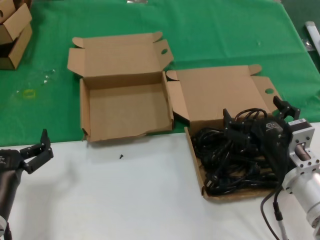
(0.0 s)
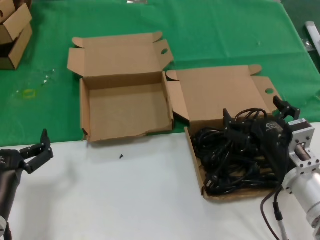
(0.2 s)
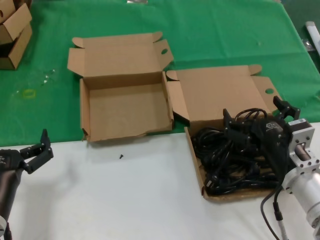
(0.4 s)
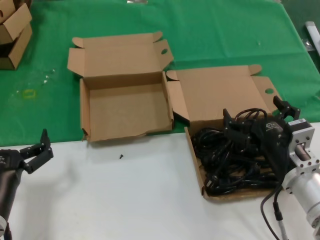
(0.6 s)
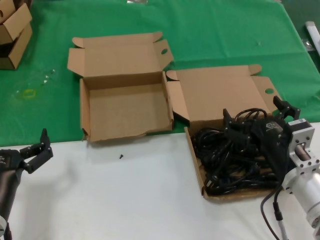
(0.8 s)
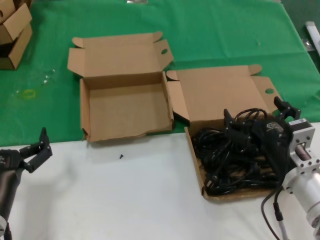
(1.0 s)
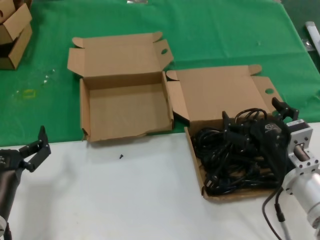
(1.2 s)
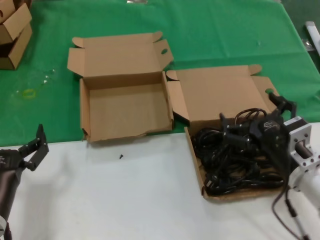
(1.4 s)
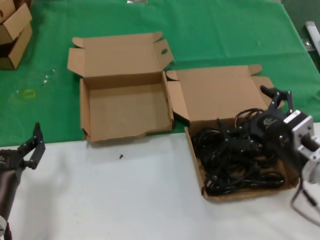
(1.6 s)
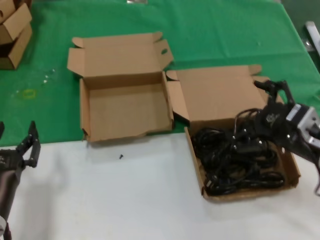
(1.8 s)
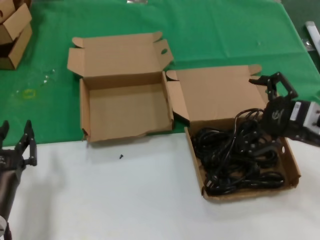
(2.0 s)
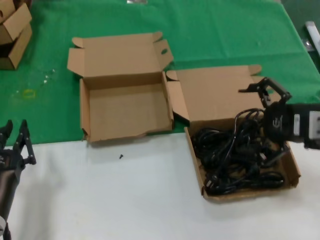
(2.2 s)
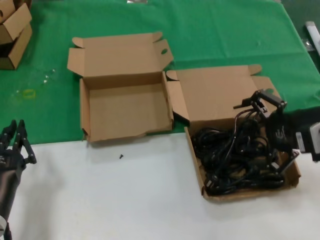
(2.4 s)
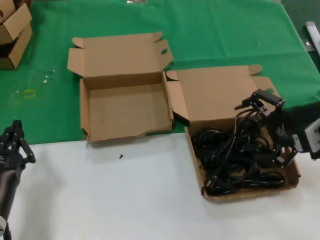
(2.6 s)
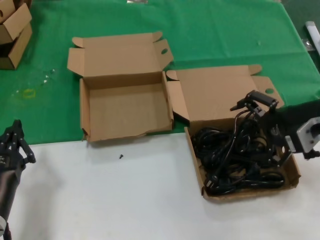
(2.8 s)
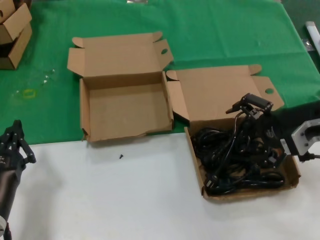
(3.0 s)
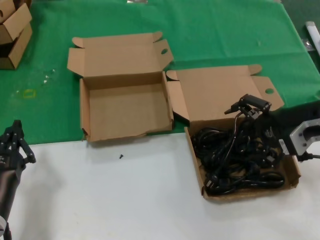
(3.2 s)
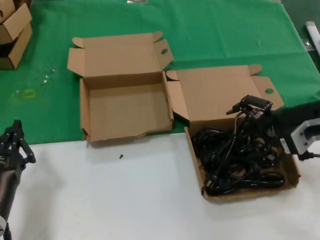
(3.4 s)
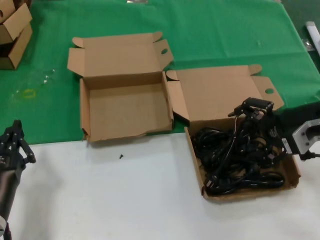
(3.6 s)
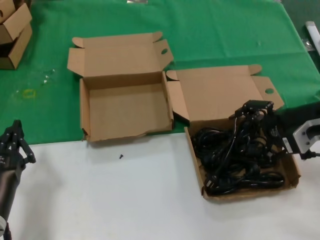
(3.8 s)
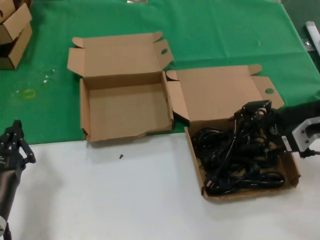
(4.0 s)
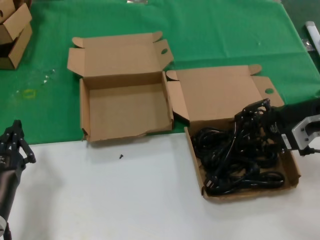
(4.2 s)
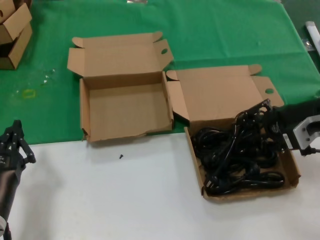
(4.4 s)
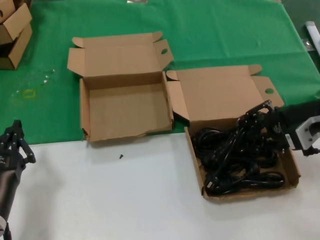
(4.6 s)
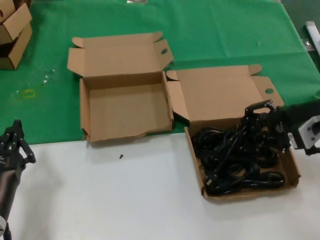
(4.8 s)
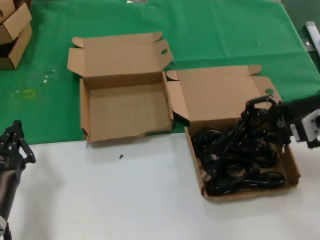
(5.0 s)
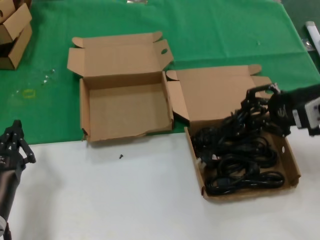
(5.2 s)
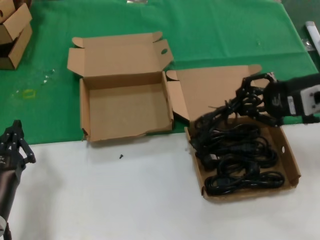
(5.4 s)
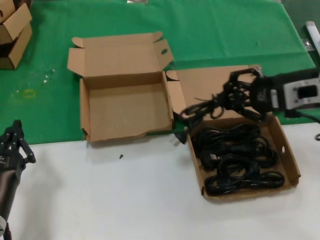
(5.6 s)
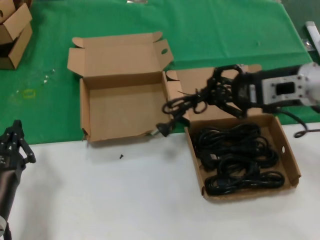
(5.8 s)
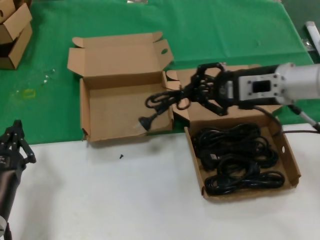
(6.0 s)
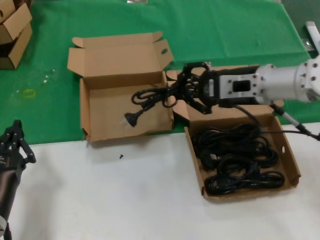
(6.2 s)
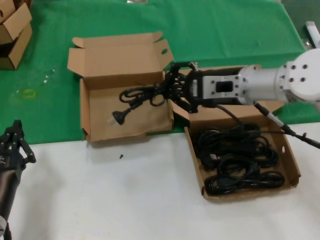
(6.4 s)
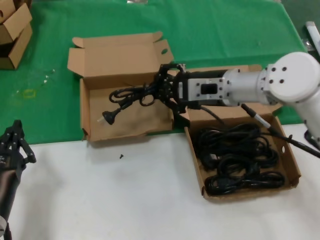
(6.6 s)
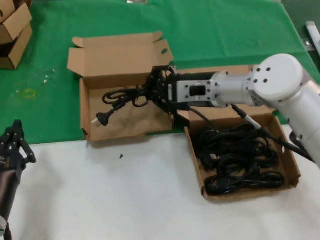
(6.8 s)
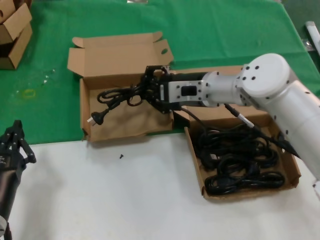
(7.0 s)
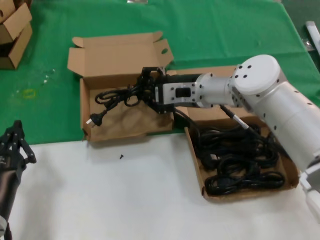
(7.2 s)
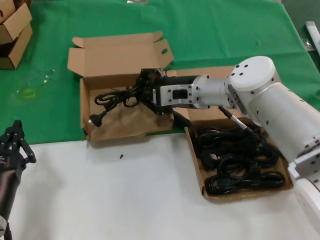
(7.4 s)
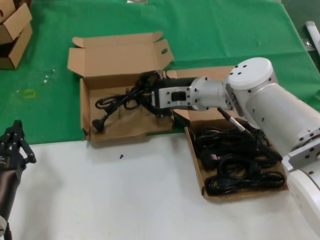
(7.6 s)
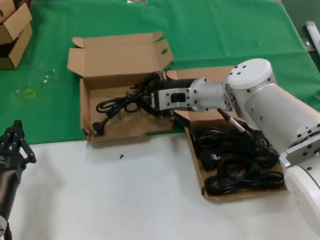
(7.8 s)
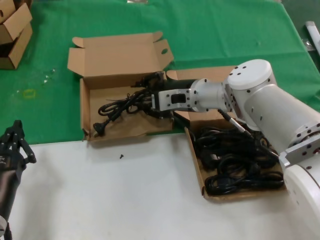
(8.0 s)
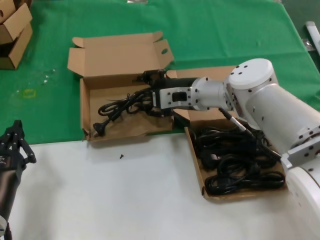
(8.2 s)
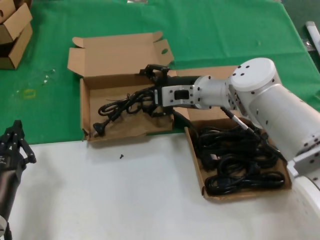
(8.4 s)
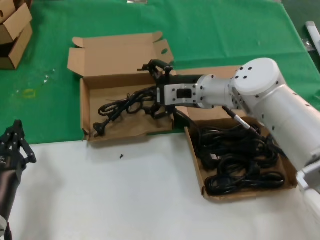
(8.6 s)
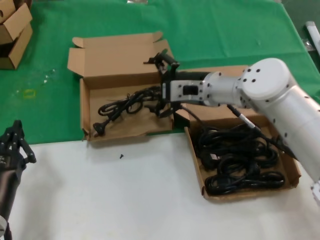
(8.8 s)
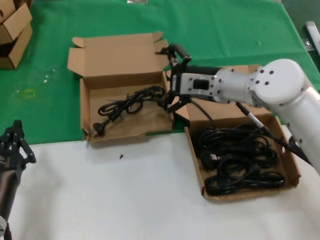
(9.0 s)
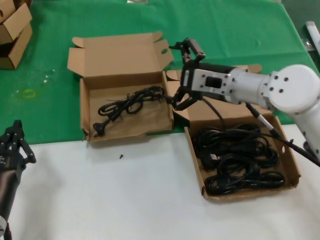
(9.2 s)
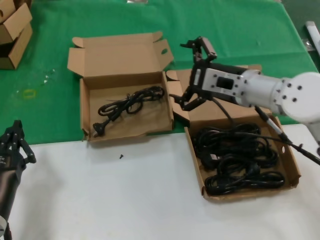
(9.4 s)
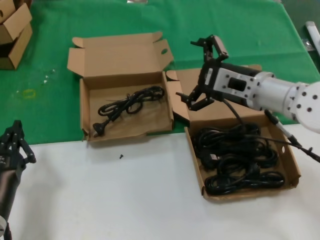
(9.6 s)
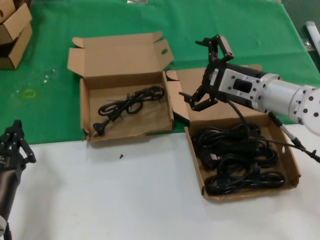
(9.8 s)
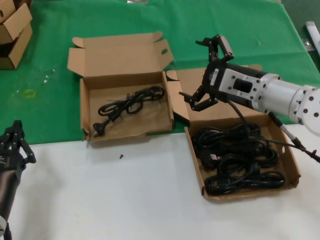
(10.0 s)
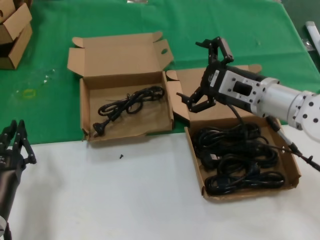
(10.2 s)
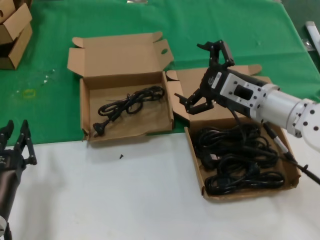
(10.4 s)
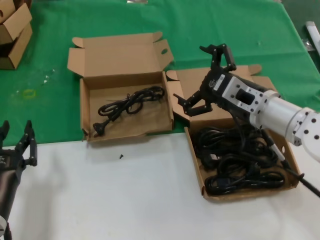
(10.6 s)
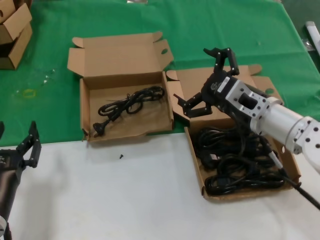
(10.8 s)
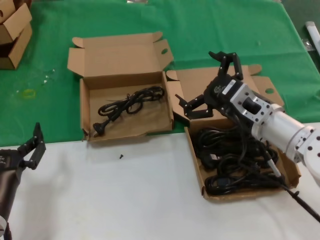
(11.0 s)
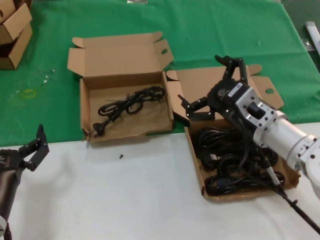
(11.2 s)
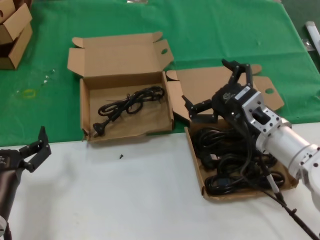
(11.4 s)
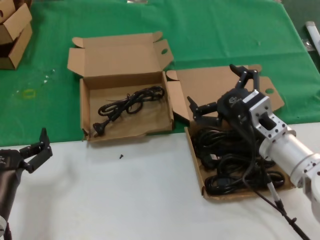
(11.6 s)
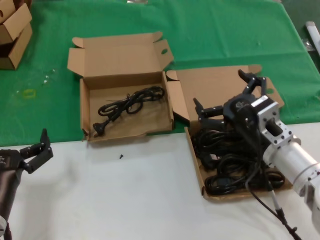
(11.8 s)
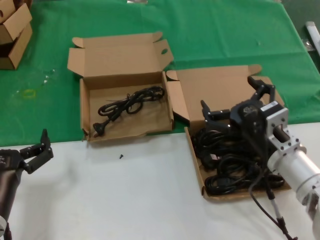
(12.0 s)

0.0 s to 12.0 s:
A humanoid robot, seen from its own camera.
Task of the whole recording: take the parts from the box containing them and put them into an empty box.
Step, 0.0 to 4.6 s: Grasp the data cable.
Step, 4.8 to 7.8 s: Place the data cable in the another box.
0.0 to 1.6 s: The right hand shifts by approximately 5 cm.
1.6 to 3.0 s: The right hand shifts about 15 cm upward, forward and to the right.
3.0 to 4.4 s: The hands stay close to where they were, moving slightly.
4.4 to 6.0 s: The right hand goes about 10 cm to the left.
6.0 to 7.6 s: The right hand shifts about 20 cm to the left, forward and downward.
7.6 to 9.0 s: The right hand changes place by some 5 cm.
9.0 to 10.4 s: The right hand travels backward and to the right by approximately 10 cm.
10.4 to 12.0 s: The right hand moves downward and backward, roughly 10 cm.

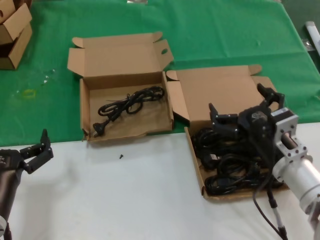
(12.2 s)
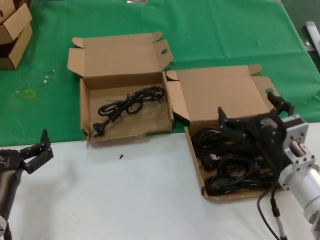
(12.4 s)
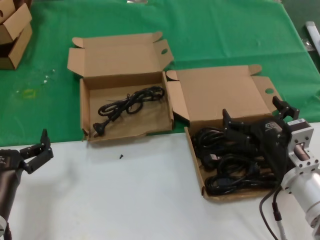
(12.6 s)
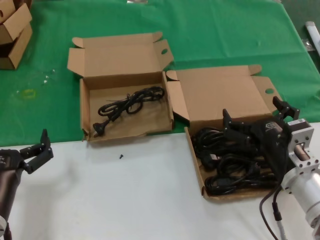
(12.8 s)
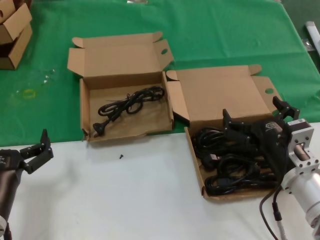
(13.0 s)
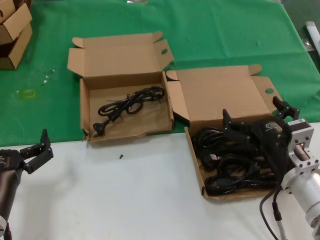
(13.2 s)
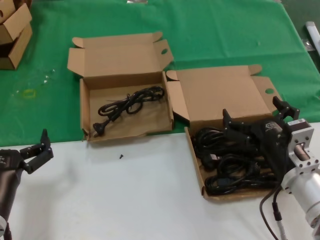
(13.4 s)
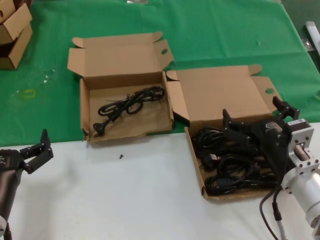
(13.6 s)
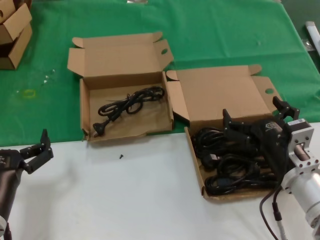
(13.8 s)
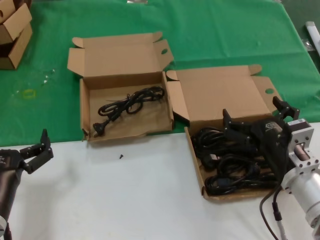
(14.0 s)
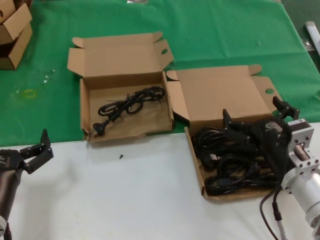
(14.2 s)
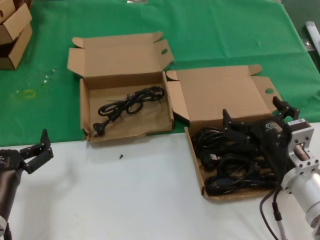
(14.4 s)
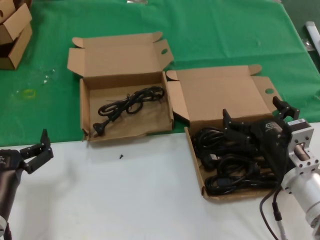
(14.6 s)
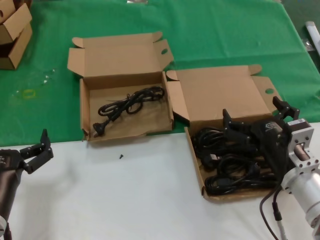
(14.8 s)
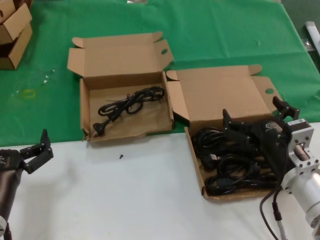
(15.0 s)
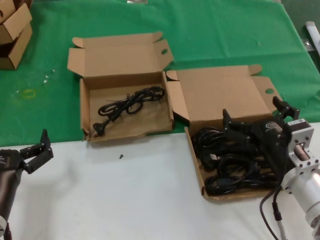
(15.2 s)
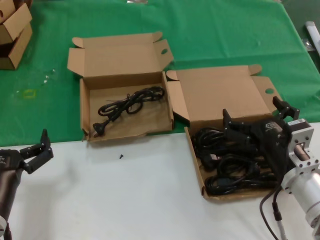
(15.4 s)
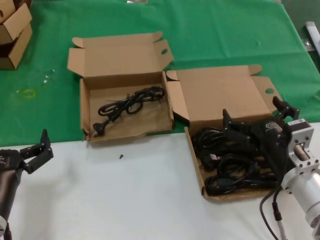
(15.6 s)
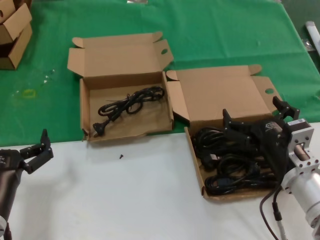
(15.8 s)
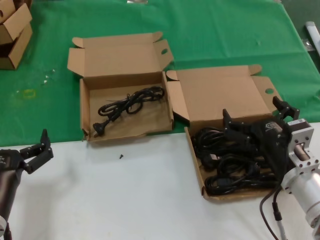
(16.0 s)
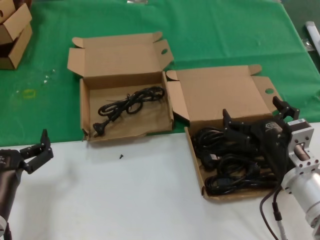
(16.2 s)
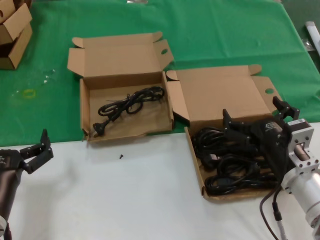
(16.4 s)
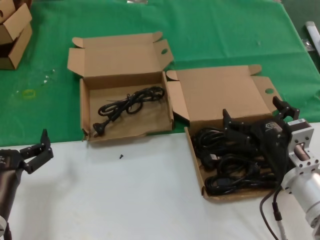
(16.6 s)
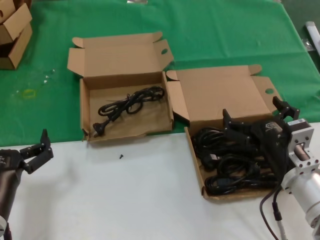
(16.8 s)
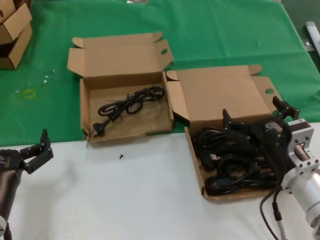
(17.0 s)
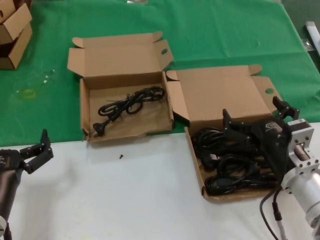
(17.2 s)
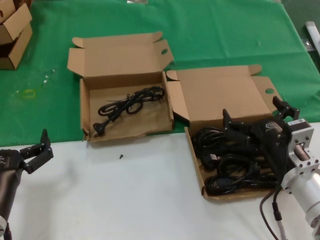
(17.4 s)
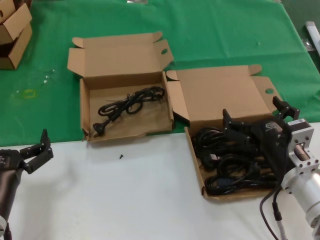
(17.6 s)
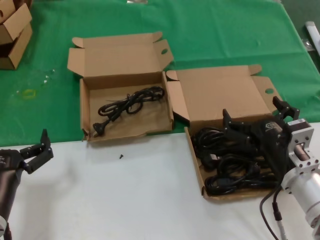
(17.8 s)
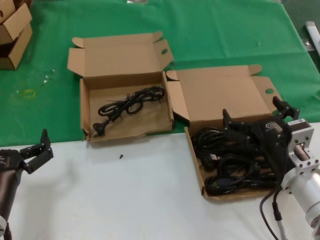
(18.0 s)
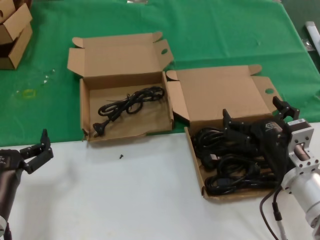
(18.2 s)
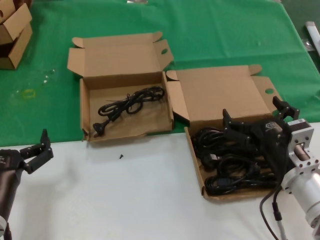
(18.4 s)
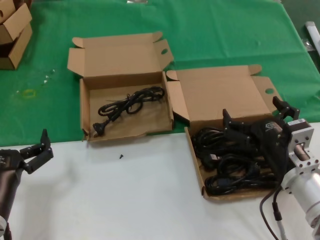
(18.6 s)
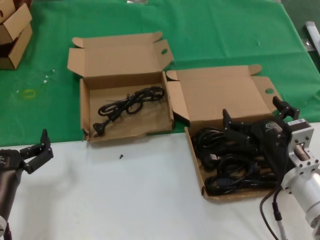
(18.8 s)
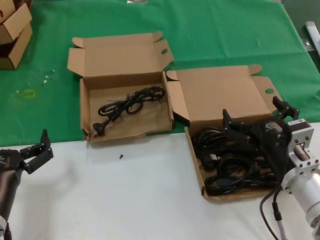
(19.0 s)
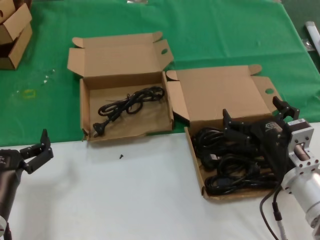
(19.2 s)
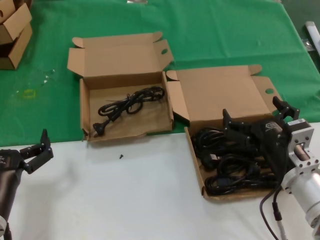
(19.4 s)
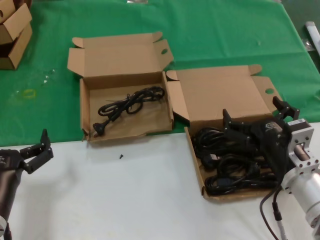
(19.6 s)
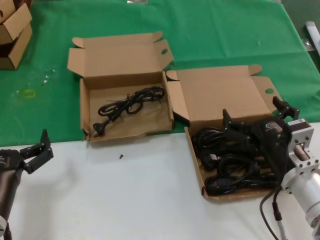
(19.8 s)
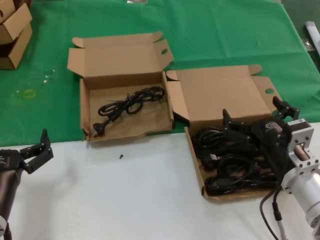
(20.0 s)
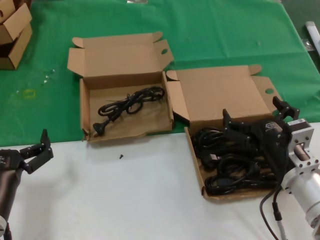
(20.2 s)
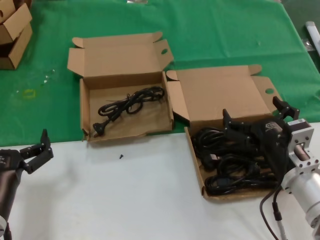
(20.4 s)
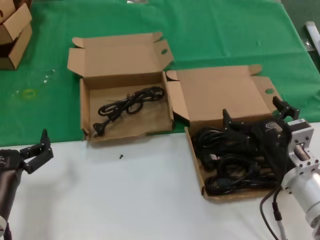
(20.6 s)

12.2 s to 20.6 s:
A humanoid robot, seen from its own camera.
Task of the whole recording: take the parts from the box containing them and put them into an empty box.
12.2 to 13.6 s: The hands move only a little.
13.6 to 20.6 s: Neither hand changes place.

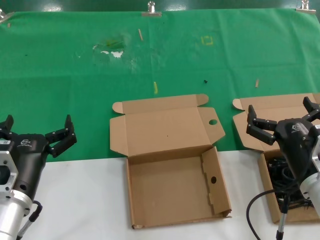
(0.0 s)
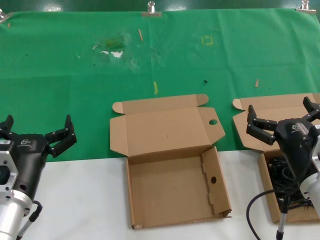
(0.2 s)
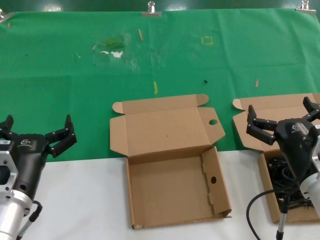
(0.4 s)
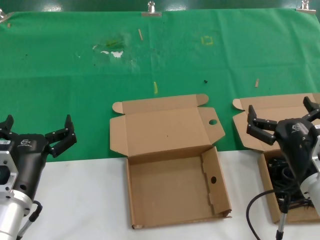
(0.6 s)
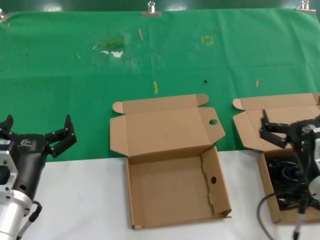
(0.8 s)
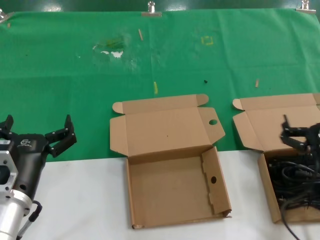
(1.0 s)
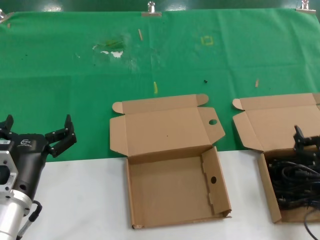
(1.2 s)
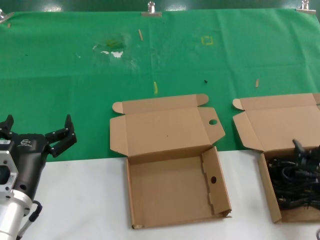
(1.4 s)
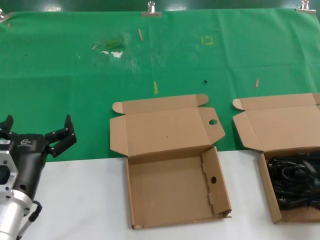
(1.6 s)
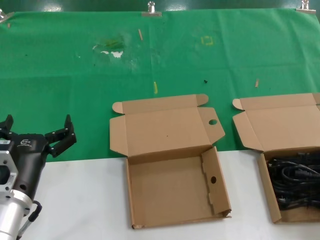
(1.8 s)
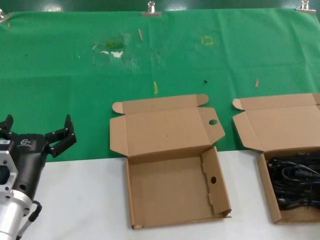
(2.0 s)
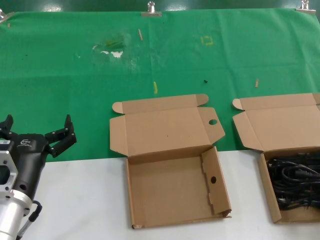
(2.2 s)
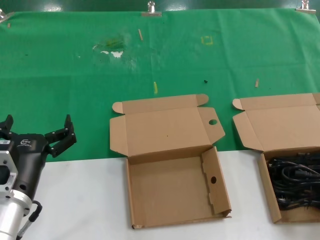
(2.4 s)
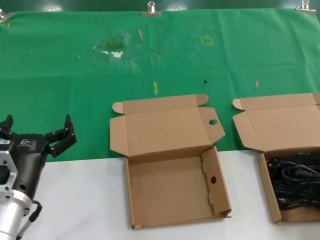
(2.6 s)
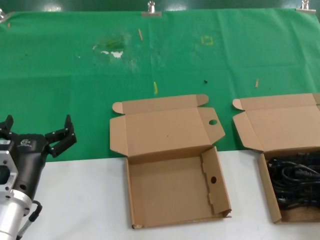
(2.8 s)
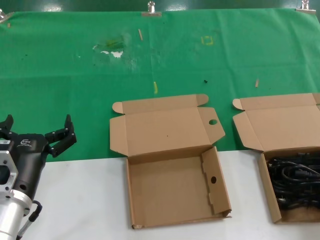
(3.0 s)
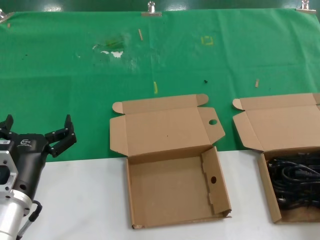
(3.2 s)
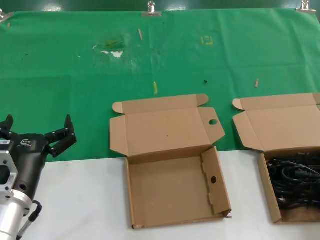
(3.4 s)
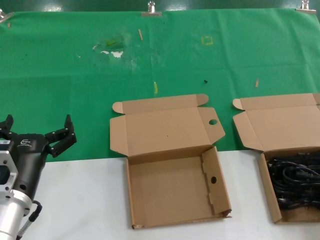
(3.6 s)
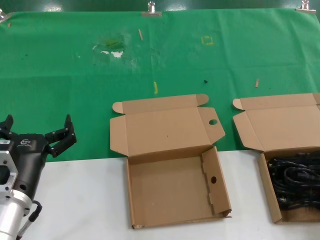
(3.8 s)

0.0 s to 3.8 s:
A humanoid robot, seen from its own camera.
Task of the whole recording: take the parts from the box containing them and put them into an empty box.
0.0 to 1.2 s: The right hand is displaced to the right by about 5 cm.
1.2 to 2.6 s: The right hand is displaced to the right by roughly 5 cm.
